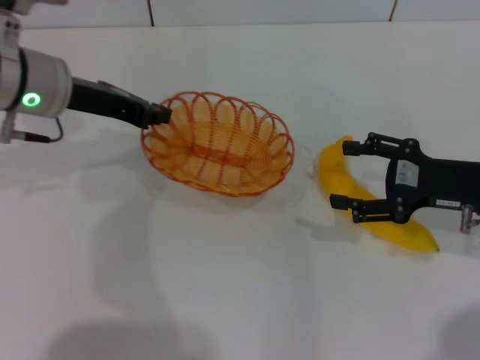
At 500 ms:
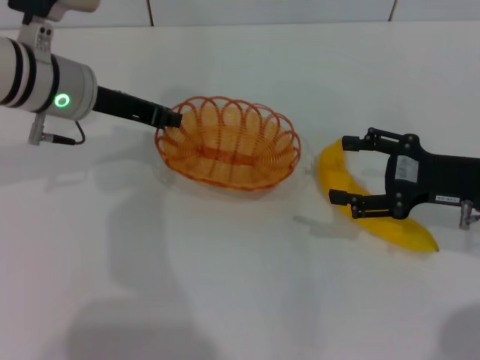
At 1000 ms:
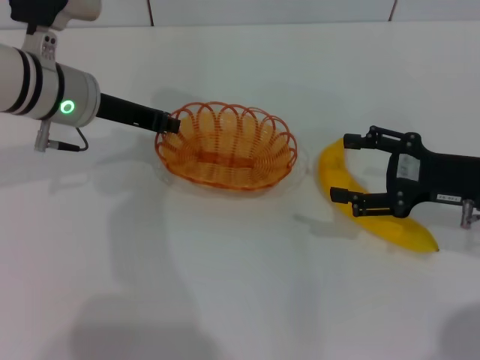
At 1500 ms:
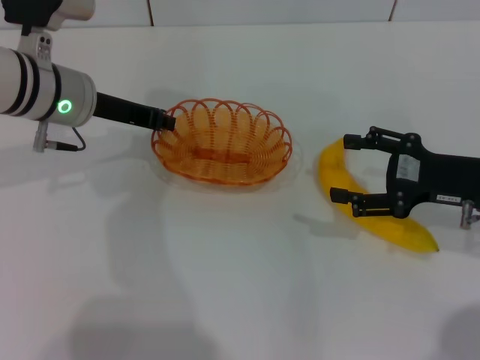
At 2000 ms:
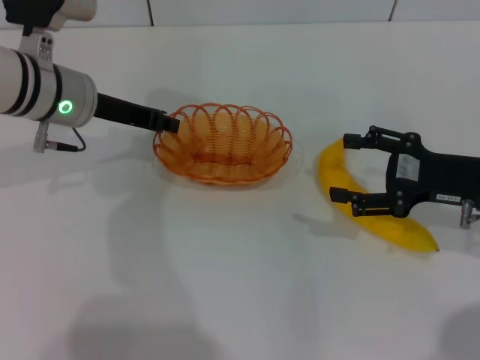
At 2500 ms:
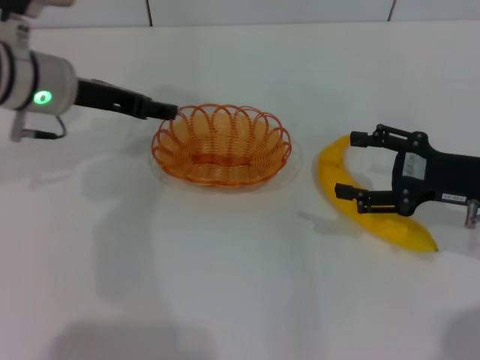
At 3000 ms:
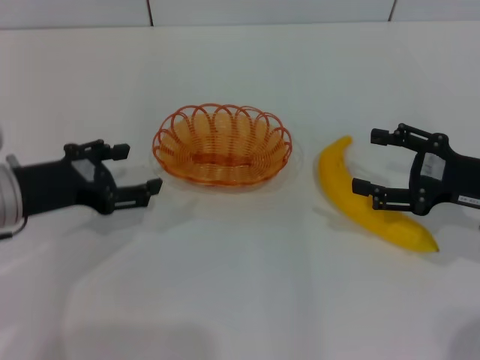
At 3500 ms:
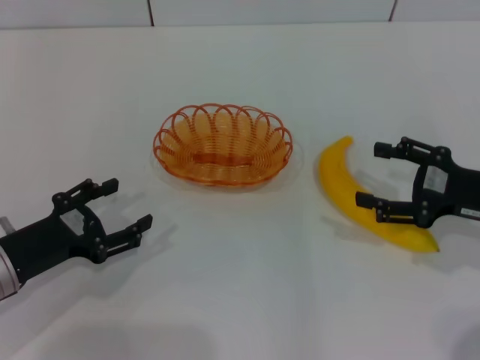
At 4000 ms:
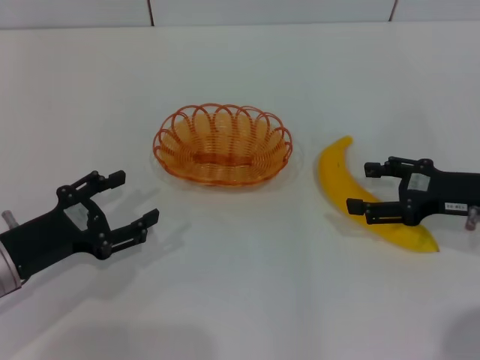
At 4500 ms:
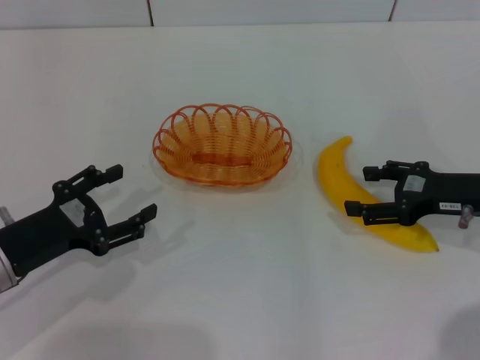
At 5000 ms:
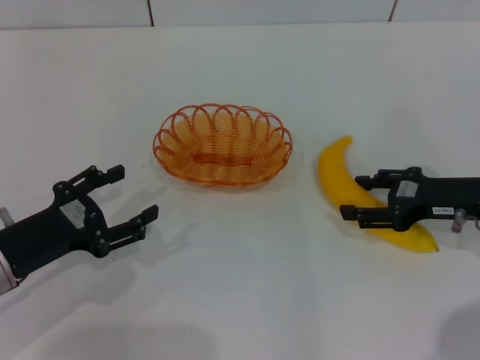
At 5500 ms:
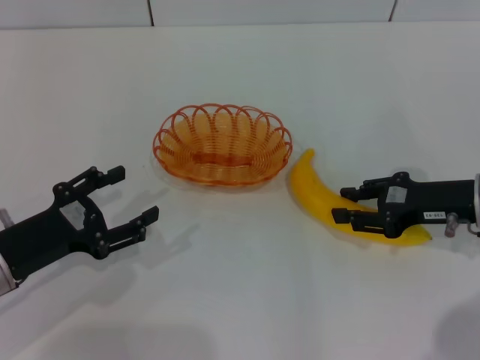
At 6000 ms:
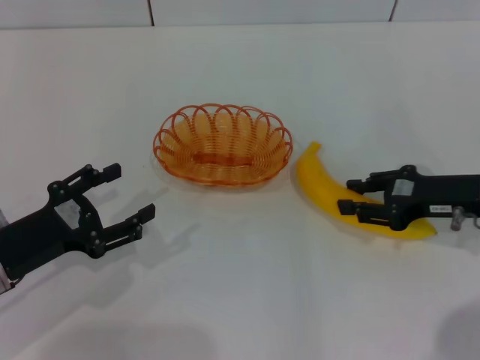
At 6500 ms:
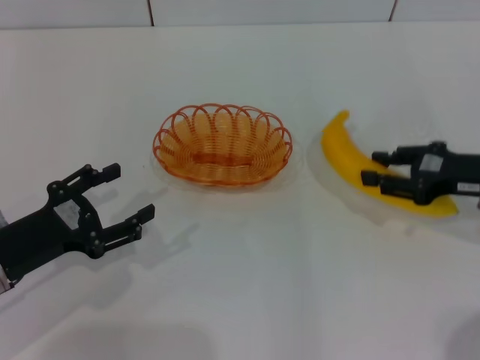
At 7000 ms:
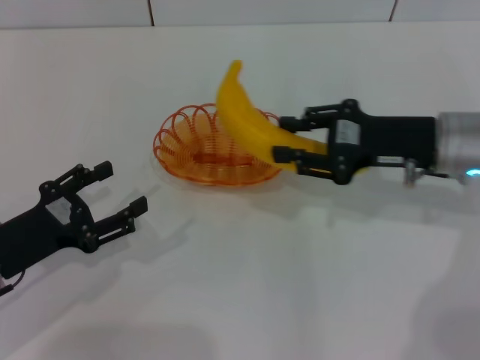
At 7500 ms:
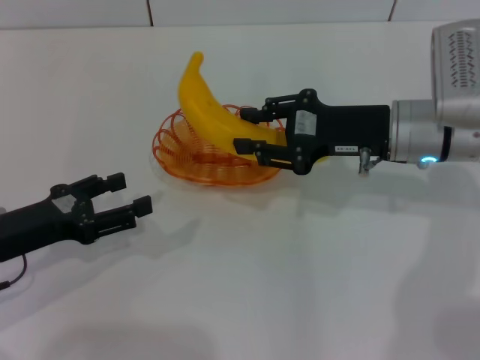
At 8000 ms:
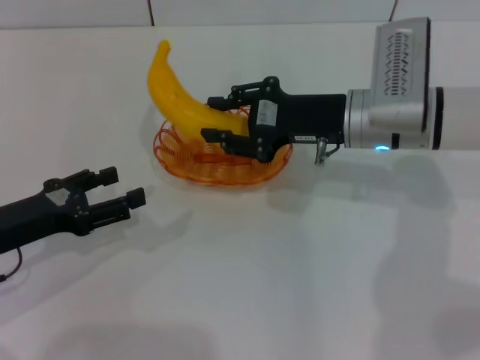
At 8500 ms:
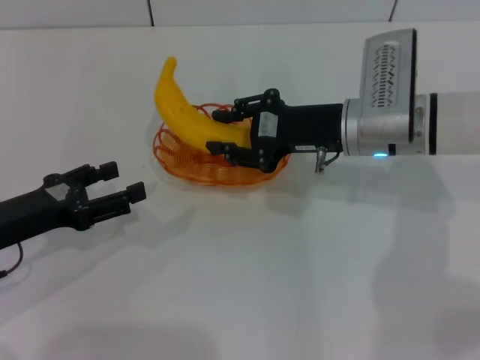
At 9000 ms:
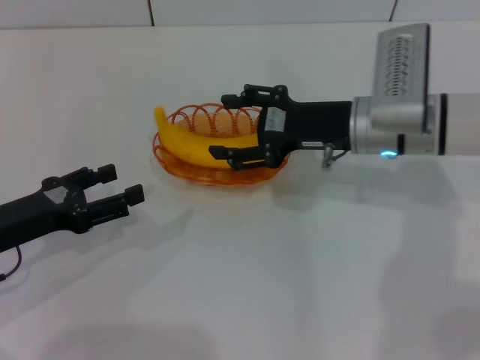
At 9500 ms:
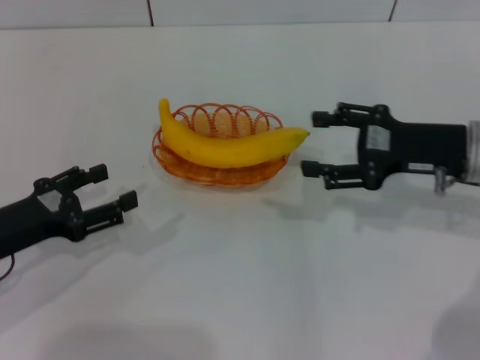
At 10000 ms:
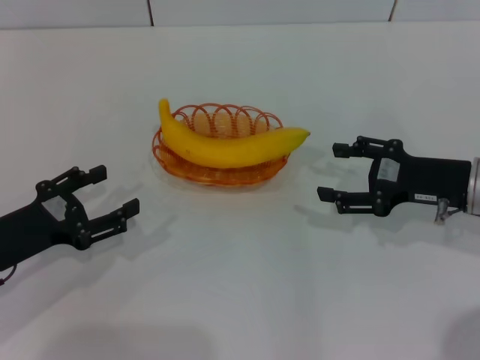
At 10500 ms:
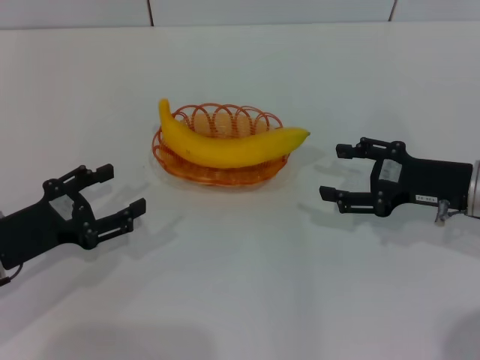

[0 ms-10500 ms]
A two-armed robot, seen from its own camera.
Step, 0 ms to 2500 ms: Place the basket in the center of view with the left gripper.
Step, 3000 ms to 6000 ms: Pick up the banana with the right gripper.
Step, 6500 ms to 9000 ms: Place the banana into the basket with the right gripper.
0 ms to 2000 ms: There are only small adjustments of the grippers.
2000 ms to 4000 ms: The left gripper goes some 20 cm backward, downward and to the left, and opens its fingers.
4000 ms to 6500 ms: The right gripper closes.
6500 ms to 8500 ms: The right gripper shifts approximately 15 cm to the left and forward.
8500 ms to 10500 ms: The right gripper goes approximately 15 cm to the right and backward, and opens its fingers.
